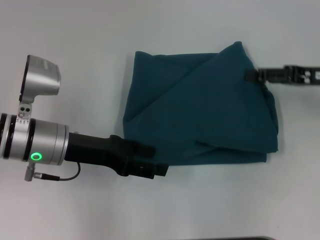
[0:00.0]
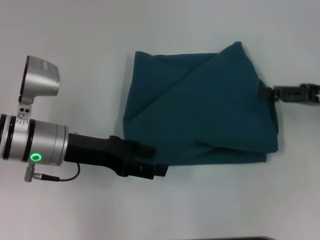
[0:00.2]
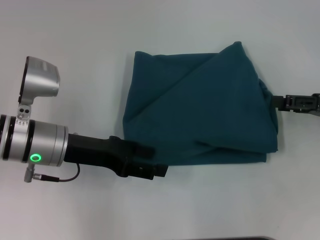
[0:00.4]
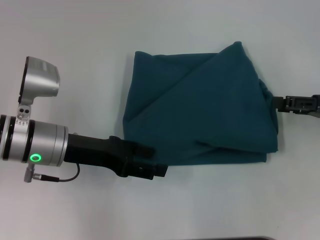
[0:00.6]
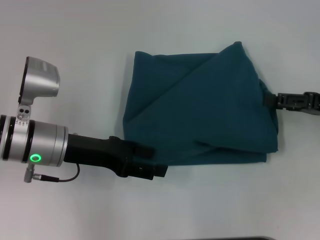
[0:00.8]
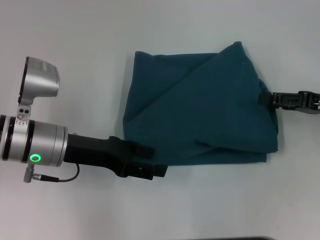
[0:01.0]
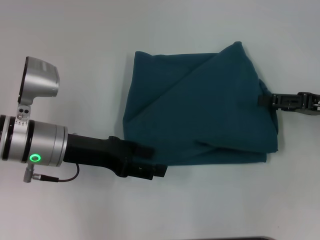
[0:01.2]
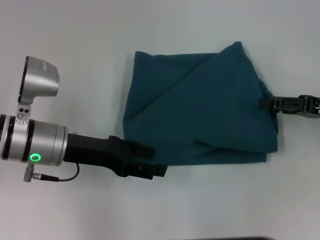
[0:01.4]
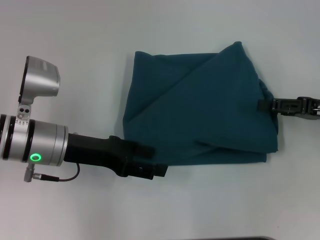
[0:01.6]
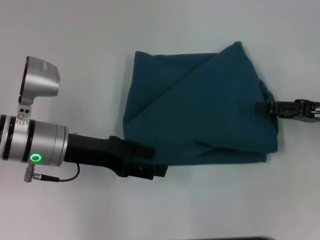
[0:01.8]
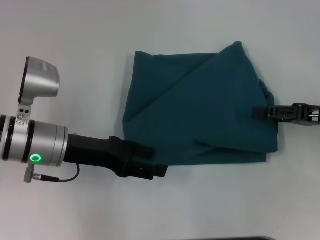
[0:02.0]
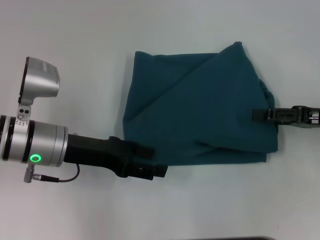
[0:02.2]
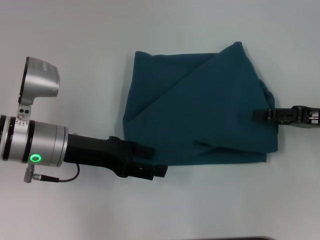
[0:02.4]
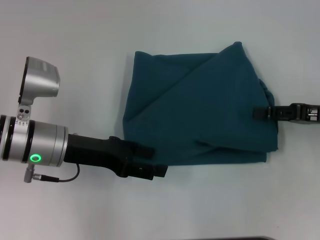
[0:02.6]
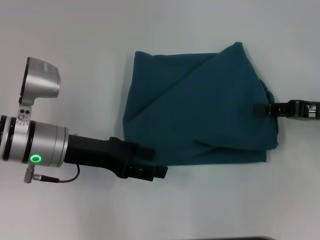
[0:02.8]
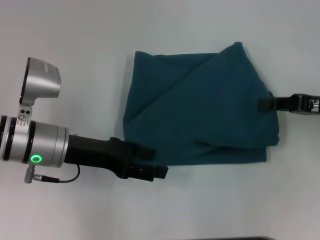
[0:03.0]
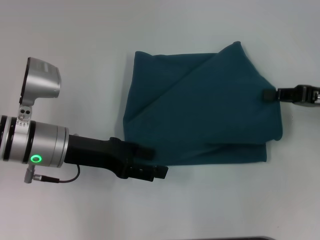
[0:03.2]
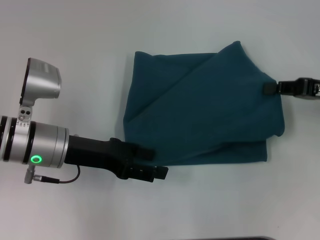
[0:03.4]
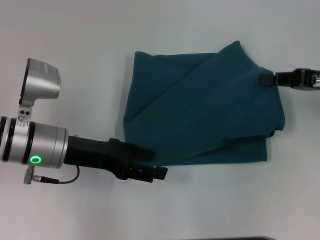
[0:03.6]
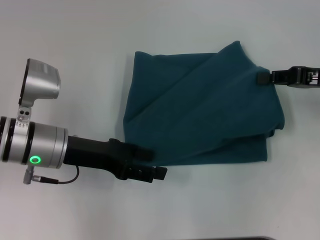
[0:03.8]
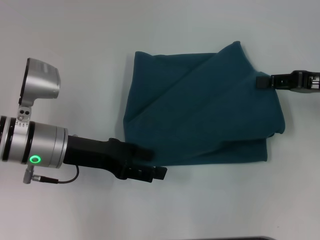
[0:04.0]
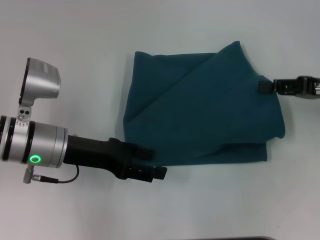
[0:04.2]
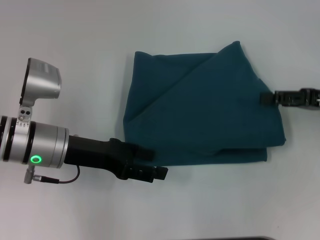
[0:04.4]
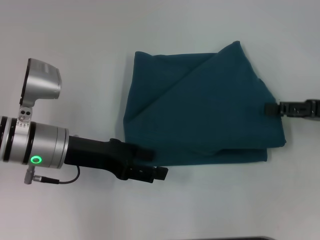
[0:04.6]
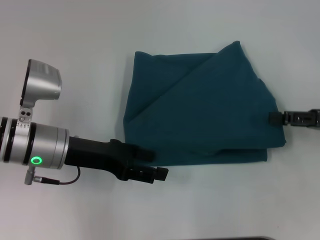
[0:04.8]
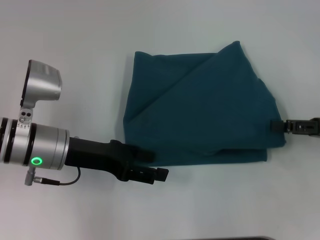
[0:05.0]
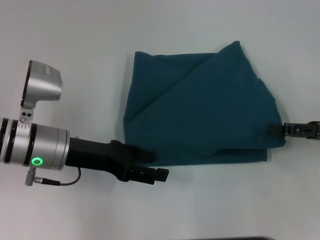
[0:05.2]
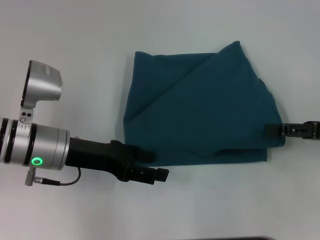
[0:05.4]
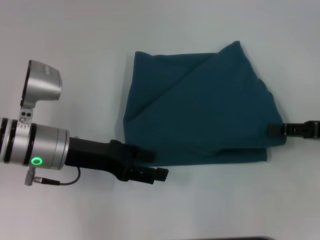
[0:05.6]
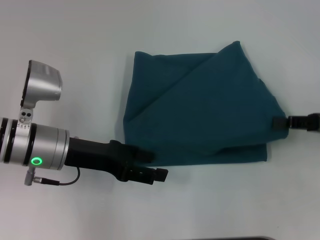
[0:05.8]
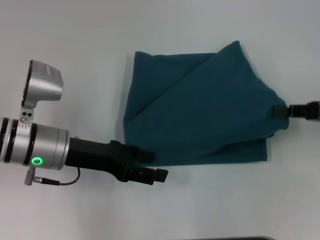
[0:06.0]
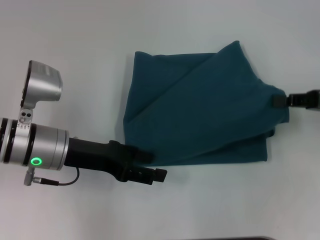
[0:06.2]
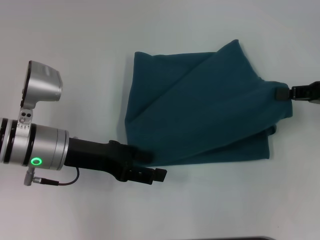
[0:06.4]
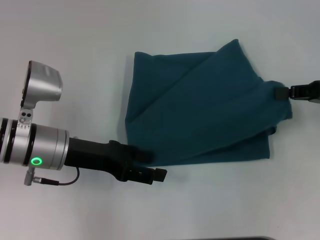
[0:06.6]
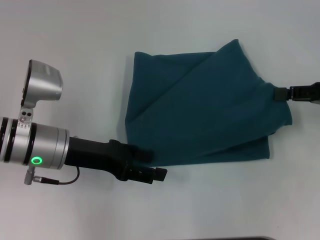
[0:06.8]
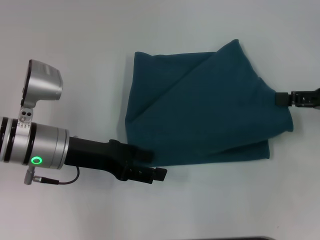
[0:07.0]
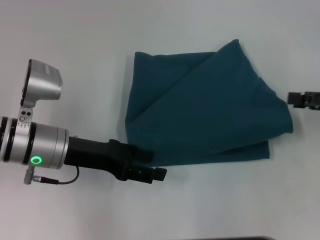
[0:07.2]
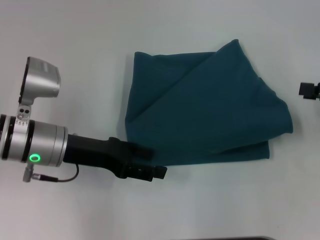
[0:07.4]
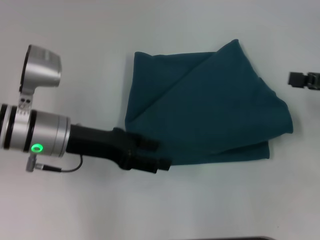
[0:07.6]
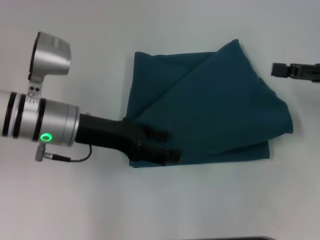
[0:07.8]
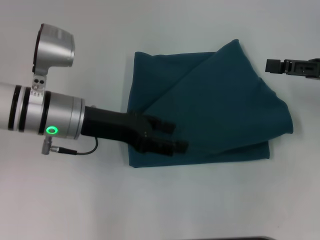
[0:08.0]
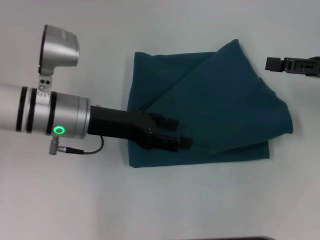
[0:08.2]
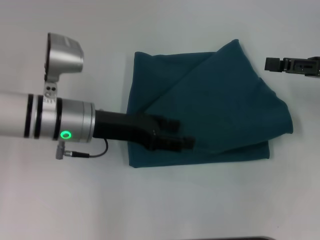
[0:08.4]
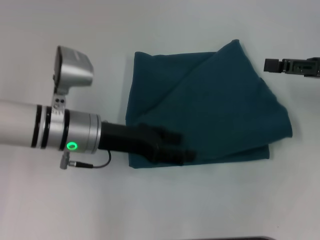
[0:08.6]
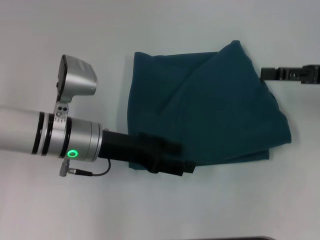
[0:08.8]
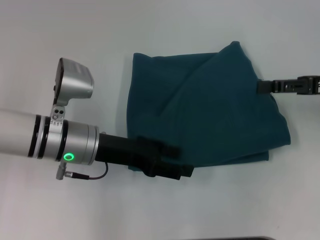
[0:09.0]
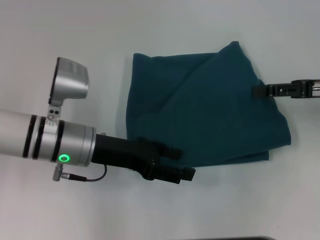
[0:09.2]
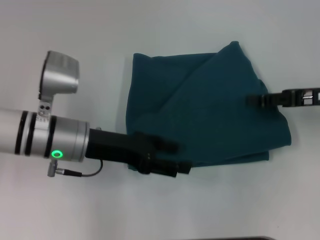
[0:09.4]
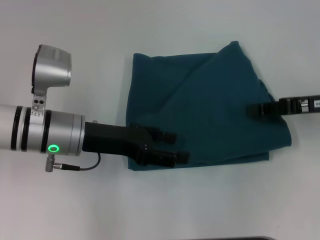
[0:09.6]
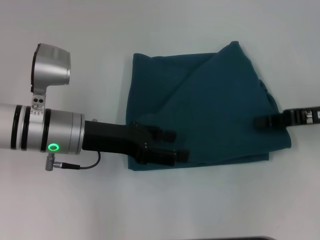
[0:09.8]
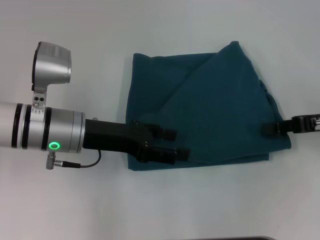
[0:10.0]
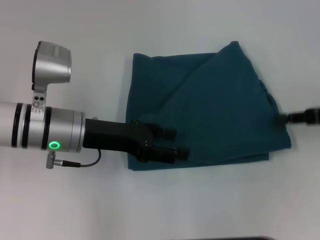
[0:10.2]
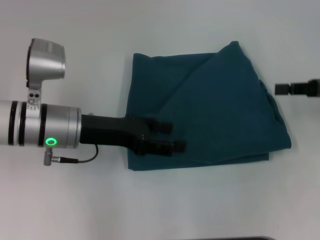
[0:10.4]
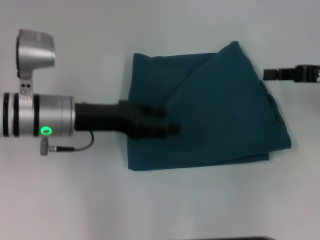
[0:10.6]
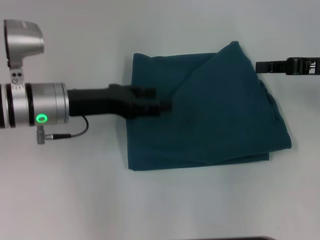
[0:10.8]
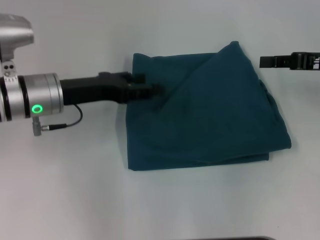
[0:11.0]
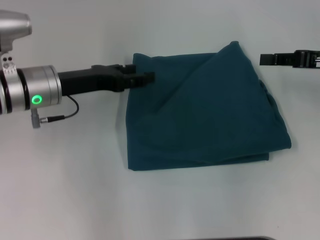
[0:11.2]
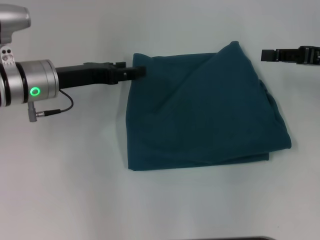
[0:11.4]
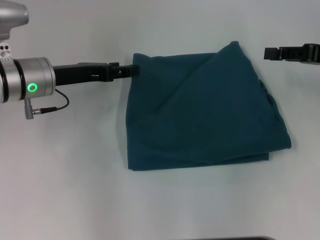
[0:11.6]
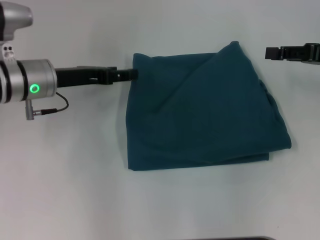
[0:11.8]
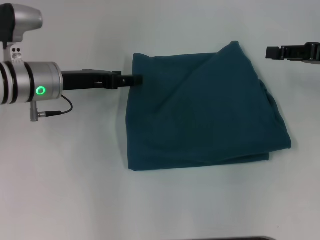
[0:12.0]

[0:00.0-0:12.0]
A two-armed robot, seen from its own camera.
0:00.0 to 0:01.6: The grippers move only a little.
0:01.6 to 0:03.0: The right gripper closes its fingers.
0:03.0 to 0:06.0: The grippers stay close to where they were, moving slightly.
0:06.0 to 0:07.6: The right gripper opens up.
0:07.6 to 0:09.0: The grippers stay close to where they were, moving slightly.
0:09.0 to 0:10.4: The right gripper closes up.
0:10.4 to 0:12.0: The left gripper heads forward, covering some 5 cm. The right gripper opens its fingers.

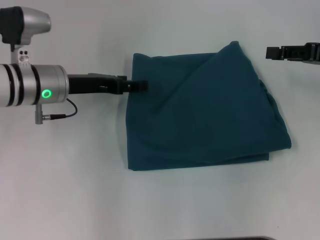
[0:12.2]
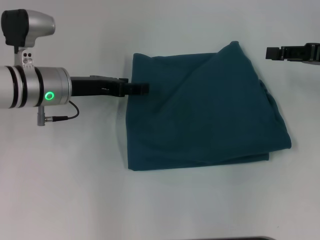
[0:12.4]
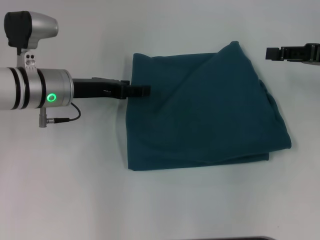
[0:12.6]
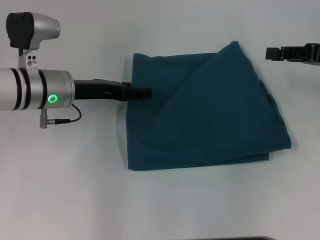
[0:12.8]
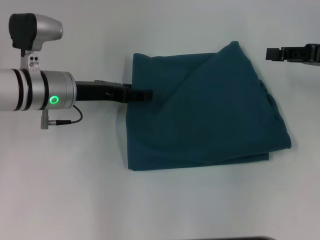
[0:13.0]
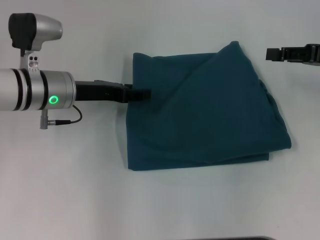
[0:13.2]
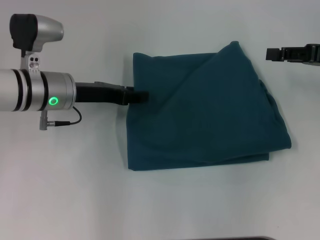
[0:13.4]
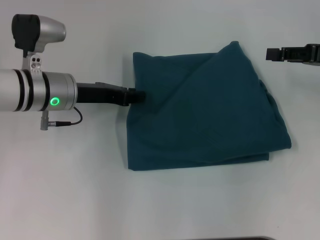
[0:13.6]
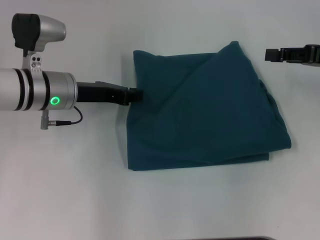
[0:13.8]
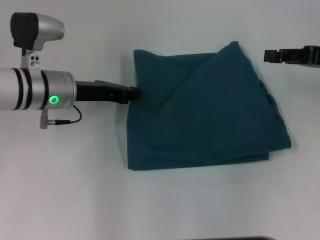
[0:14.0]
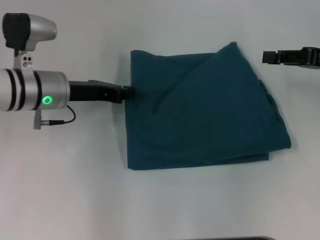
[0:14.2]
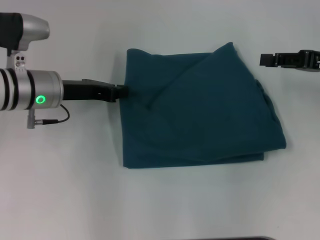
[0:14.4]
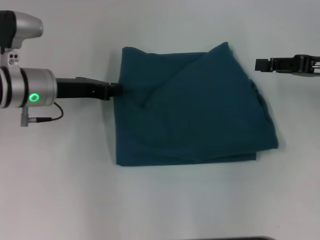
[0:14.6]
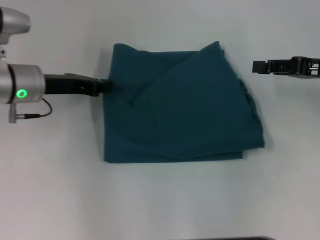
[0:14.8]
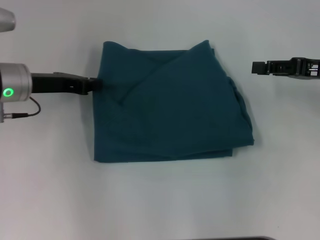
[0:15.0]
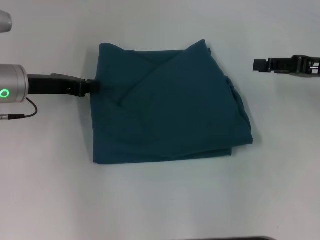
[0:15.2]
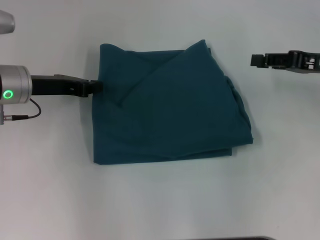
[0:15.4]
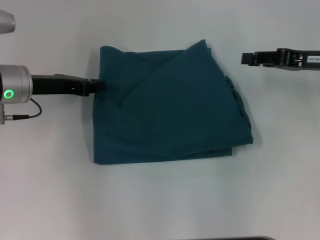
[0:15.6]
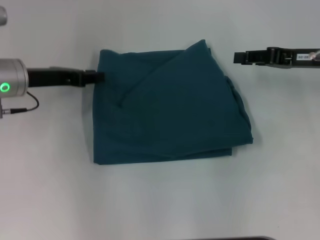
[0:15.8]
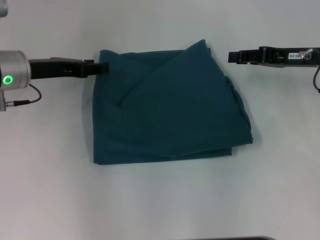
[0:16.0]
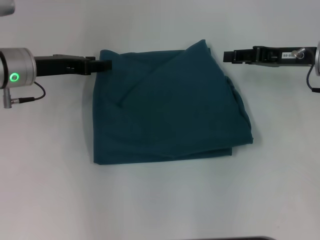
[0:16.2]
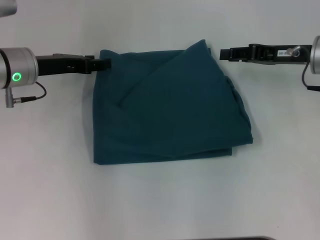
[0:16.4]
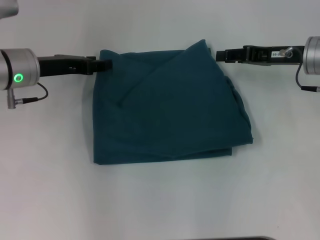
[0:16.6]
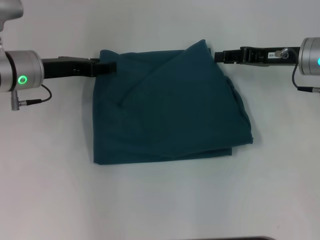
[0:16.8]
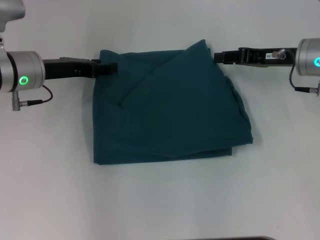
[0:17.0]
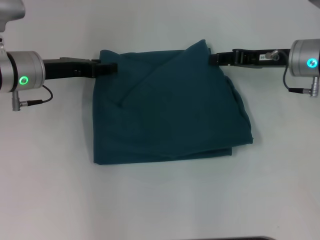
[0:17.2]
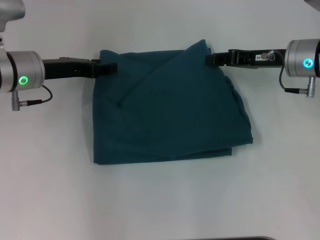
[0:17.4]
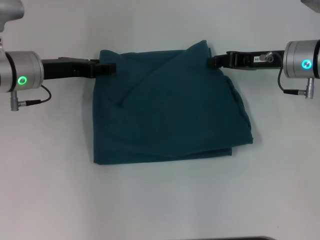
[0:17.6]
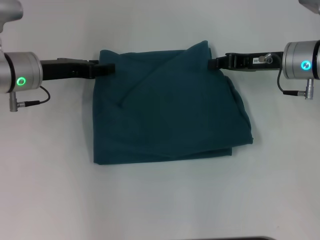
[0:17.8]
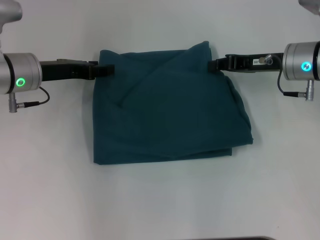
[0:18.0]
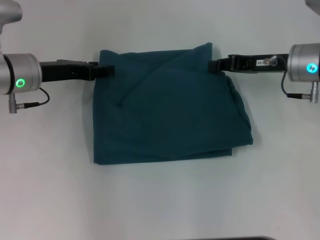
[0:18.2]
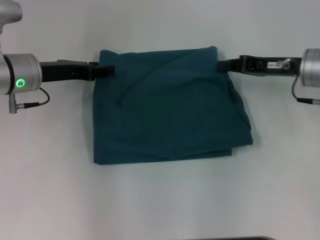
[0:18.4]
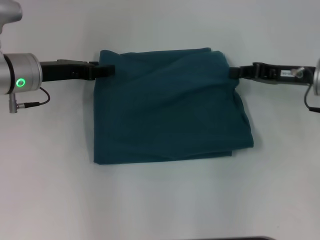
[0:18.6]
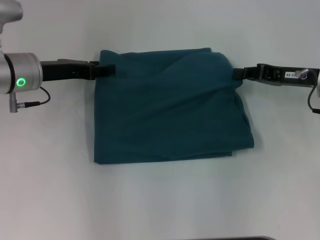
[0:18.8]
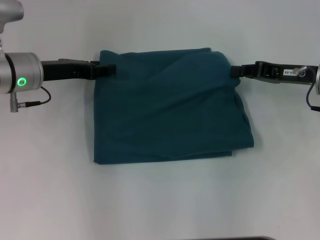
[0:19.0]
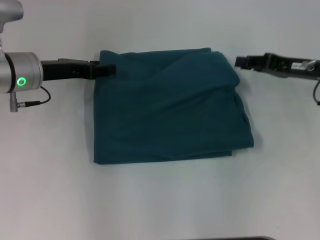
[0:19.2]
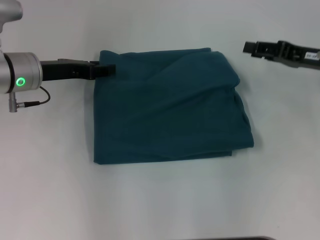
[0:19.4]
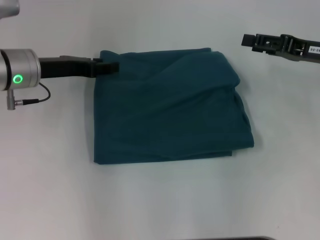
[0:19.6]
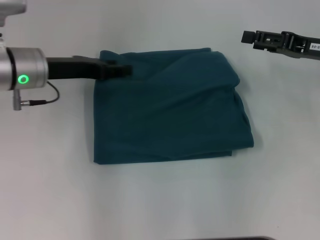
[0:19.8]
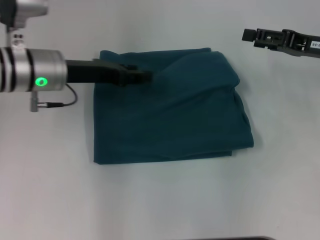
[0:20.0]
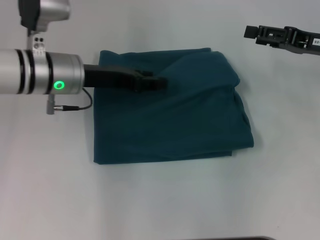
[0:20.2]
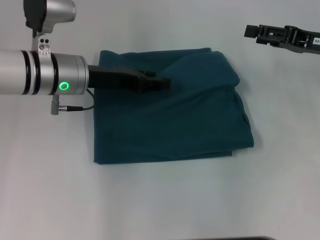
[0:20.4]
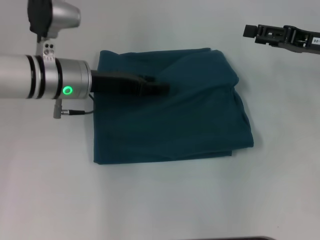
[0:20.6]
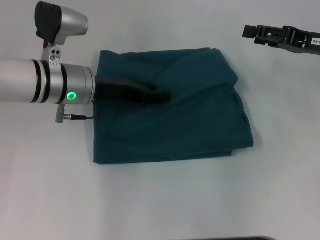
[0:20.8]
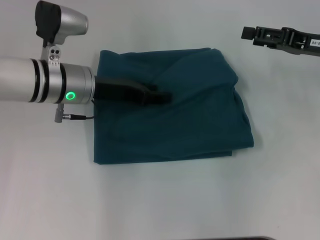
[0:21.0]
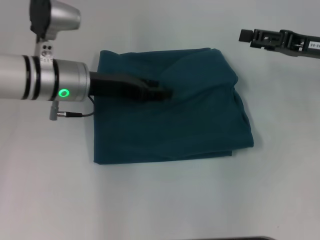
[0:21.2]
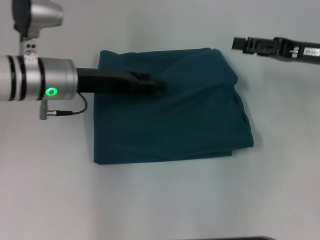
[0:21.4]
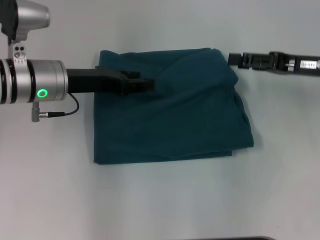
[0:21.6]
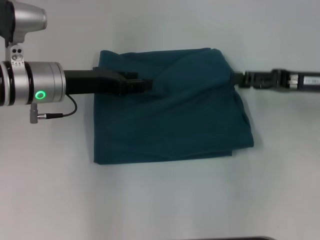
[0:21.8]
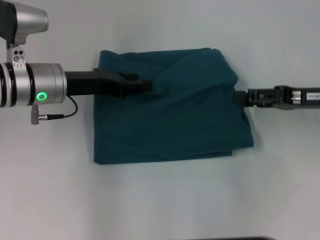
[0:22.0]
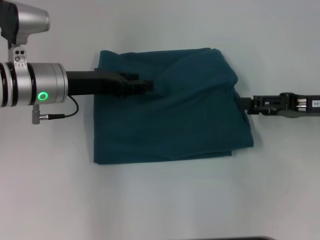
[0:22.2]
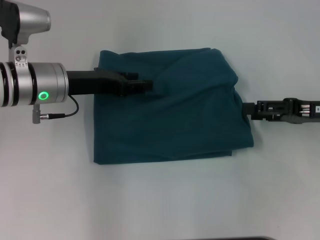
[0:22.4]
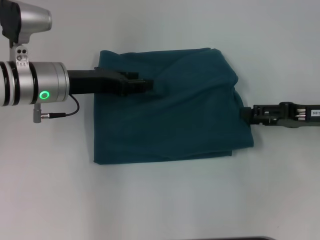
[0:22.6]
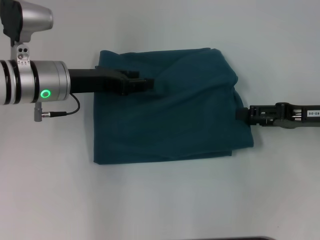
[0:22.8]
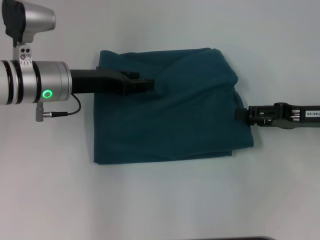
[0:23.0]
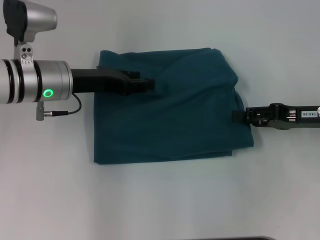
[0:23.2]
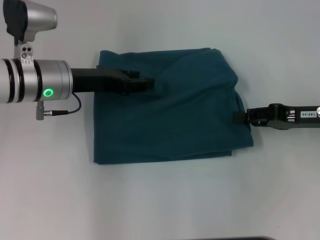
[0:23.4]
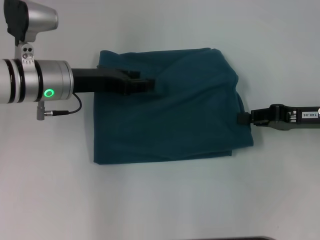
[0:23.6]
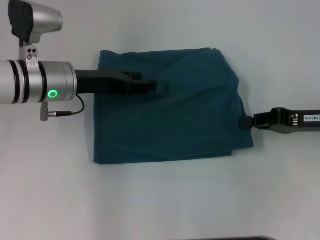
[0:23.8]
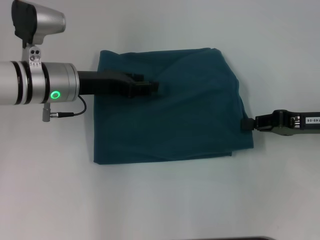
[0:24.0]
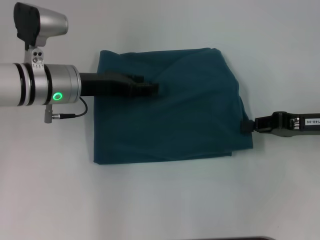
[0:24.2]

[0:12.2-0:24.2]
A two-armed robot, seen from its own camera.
0:12.2 to 0:13.8: The left gripper closes its fingers.
0:13.8 to 0:15.2: The left gripper is displaced to the left by approximately 5 cm, and closes.
0:15.2 to 0:16.6: The right gripper travels to the left by about 5 cm. The left gripper opens.
0:16.6 to 0:18.2: The right gripper closes its fingers.
0:18.2 to 0:19.8: The right gripper moves to the right, roughly 5 cm, and opens.
0:19.8 to 0:21.2: The left gripper shifts about 5 cm to the right.
0:21.2 to 0:22.6: The right gripper shifts approximately 5 cm backward.
0:22.6 to 0:24.2: The right gripper closes its fingers.
